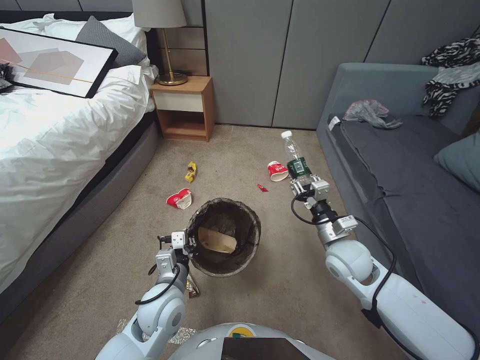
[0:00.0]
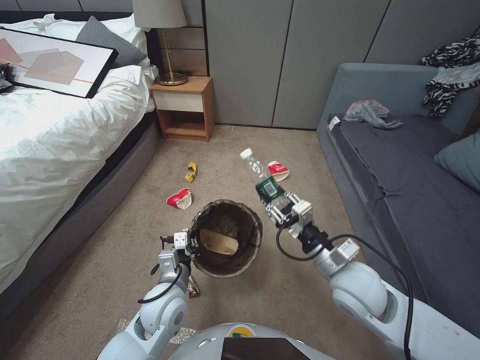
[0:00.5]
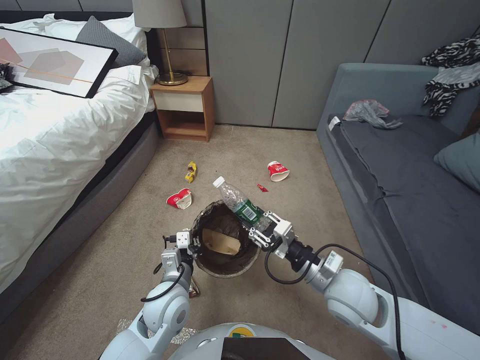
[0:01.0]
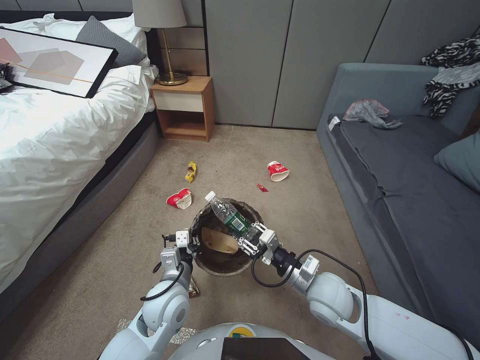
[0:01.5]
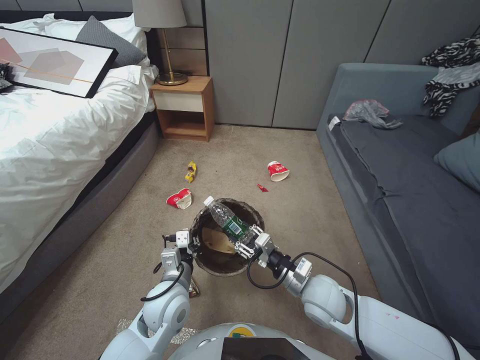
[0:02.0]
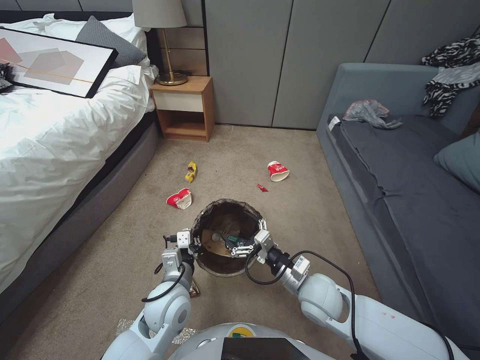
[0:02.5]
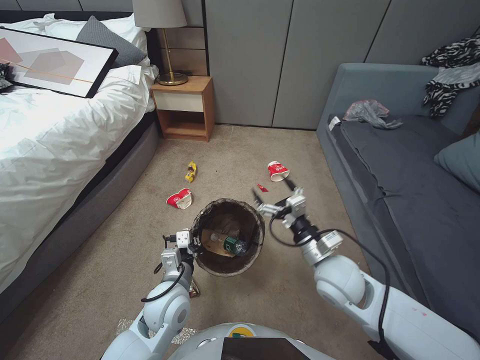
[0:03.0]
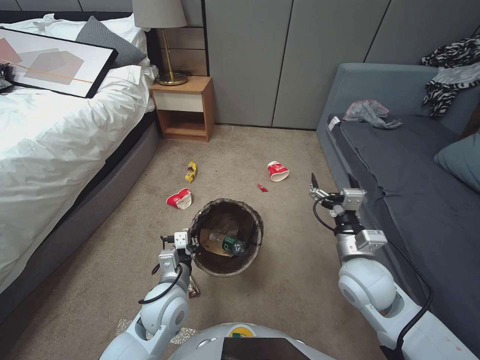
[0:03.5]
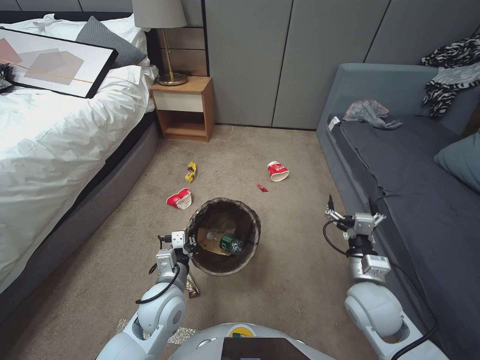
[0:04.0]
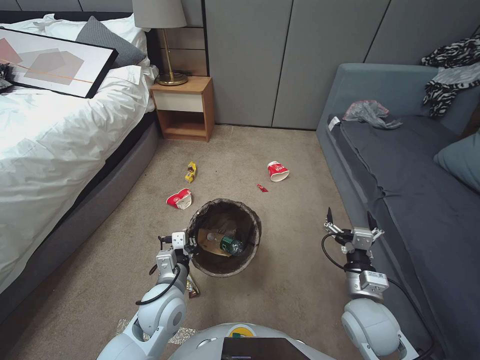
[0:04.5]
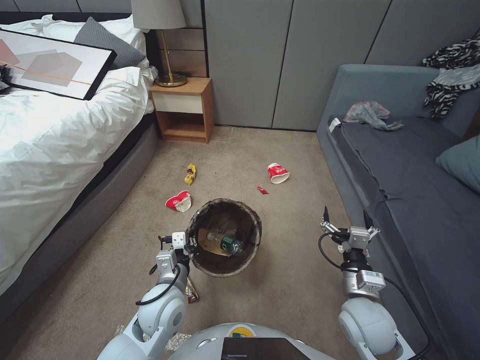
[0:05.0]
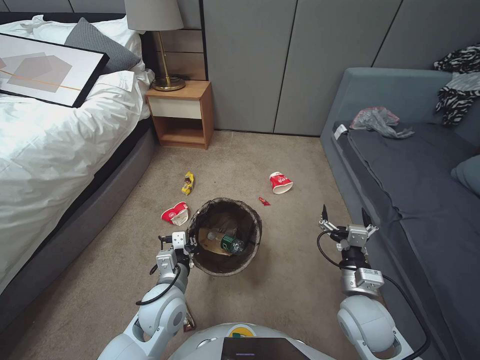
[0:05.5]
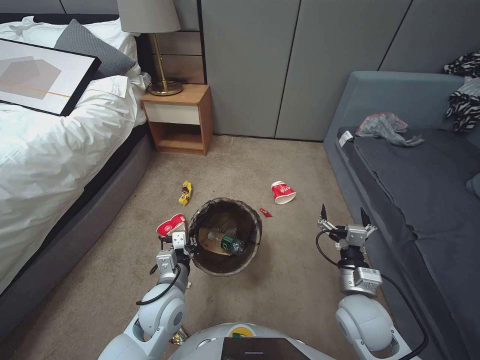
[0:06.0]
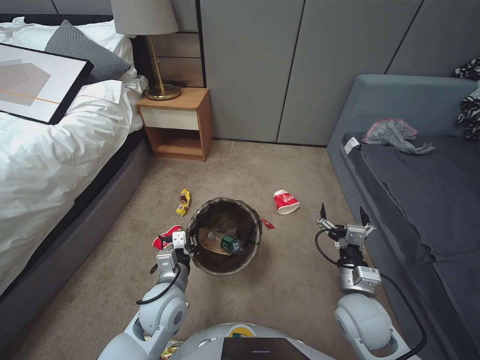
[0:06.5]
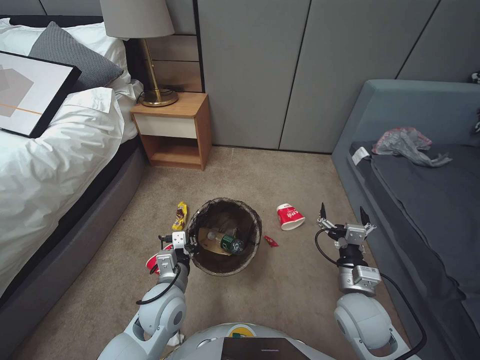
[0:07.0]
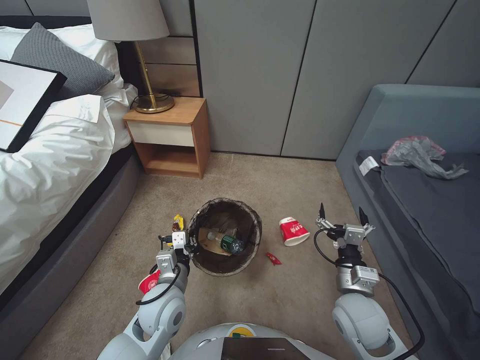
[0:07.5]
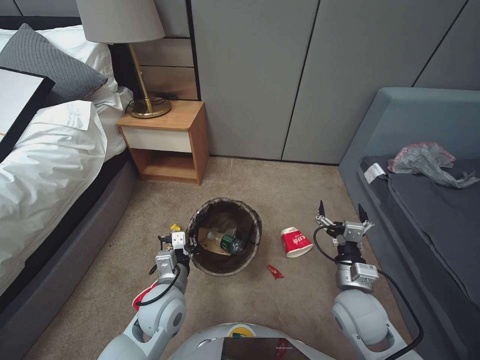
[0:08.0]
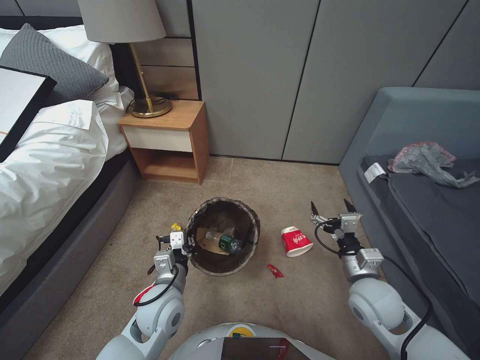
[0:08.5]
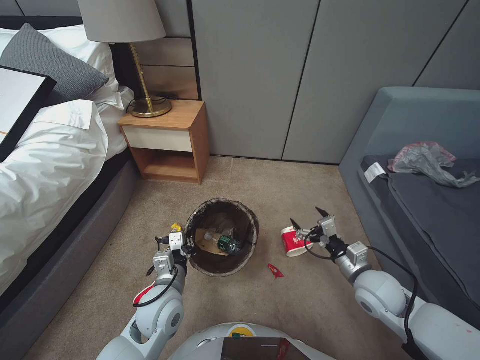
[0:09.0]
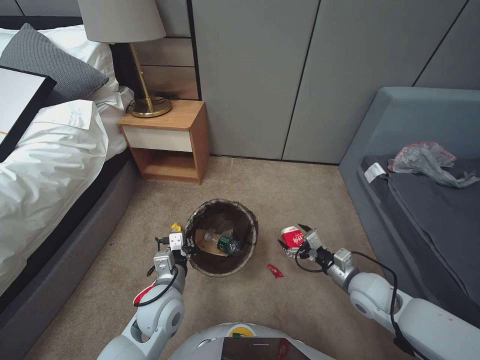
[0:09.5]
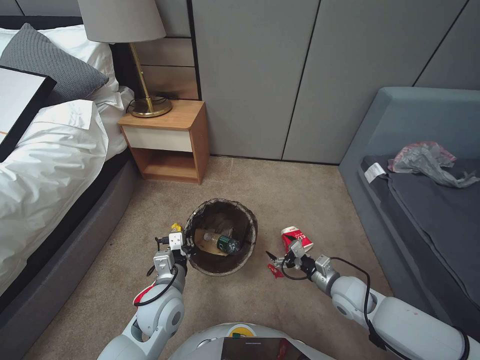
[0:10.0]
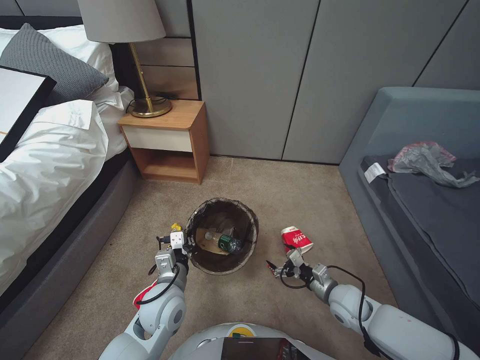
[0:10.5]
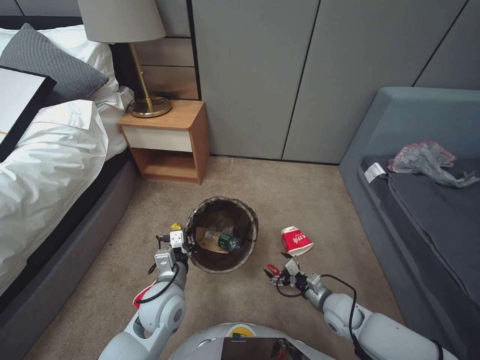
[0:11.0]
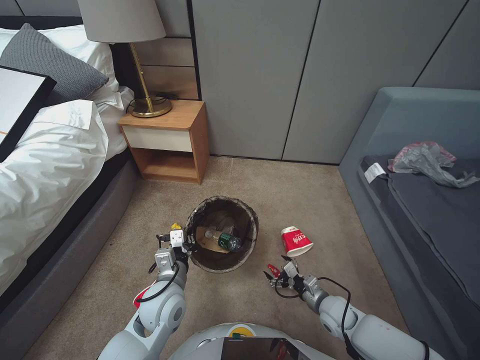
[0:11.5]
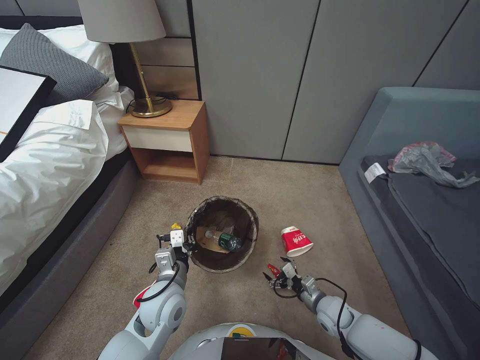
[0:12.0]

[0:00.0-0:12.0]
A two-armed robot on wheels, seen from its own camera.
Task of the whole recording: Pick up the trash bin, then pick up the garbage from the floor and place it into the trash bin.
0:00.0 to 0:02.0: The right gripper travels backward and to the left by some 10 cm.
0:02.0 to 0:04.0: The right gripper moves to the right and upward, approximately 10 cm, and opens up.
0:04.0 to 0:06.0: The right gripper changes place by about 5 cm.
0:08.0 to 0:10.0: The right gripper moves downward, forward and to the right, roughly 10 cm.
0:10.0 to 0:12.0: The right gripper moves downward, about 10 cm.

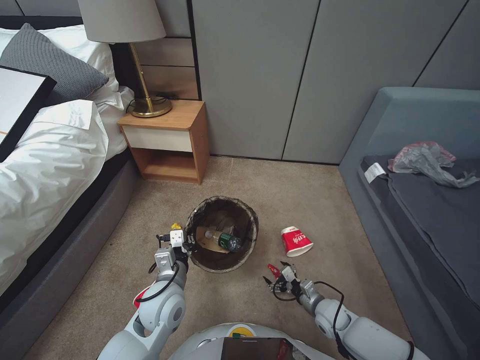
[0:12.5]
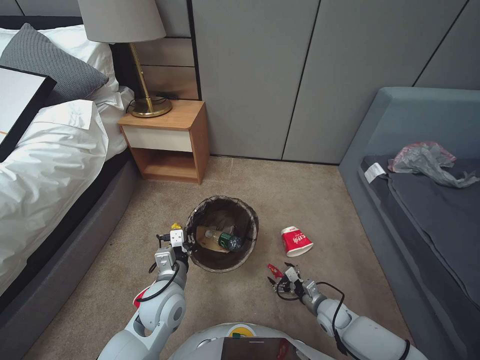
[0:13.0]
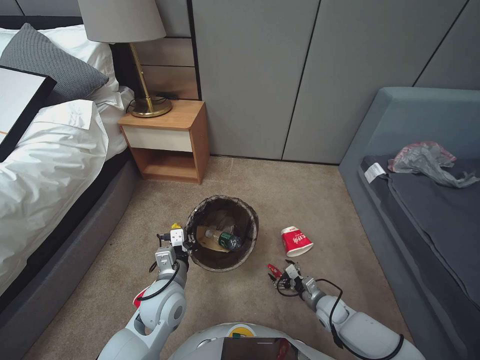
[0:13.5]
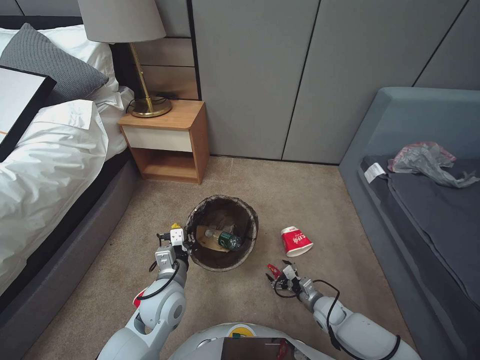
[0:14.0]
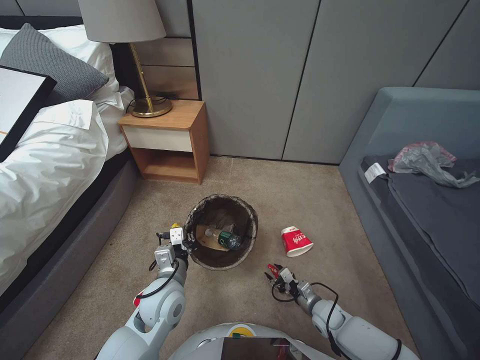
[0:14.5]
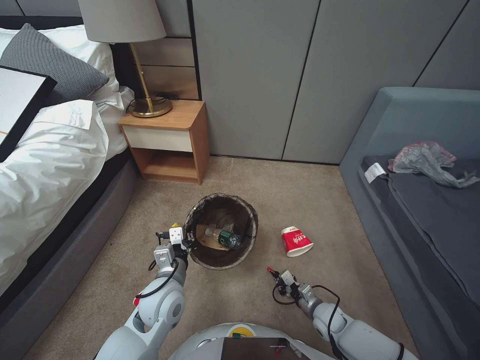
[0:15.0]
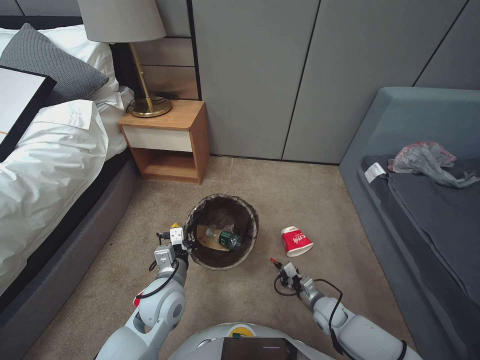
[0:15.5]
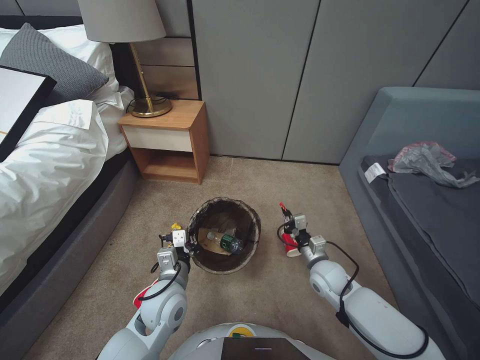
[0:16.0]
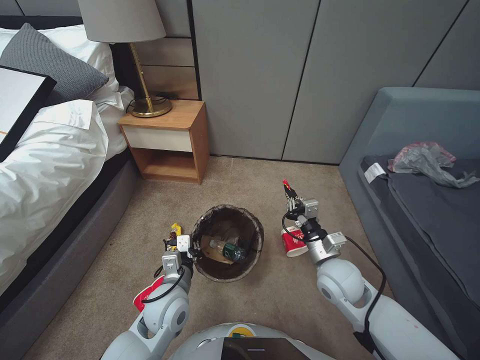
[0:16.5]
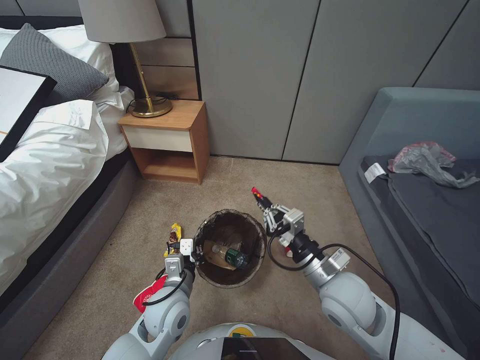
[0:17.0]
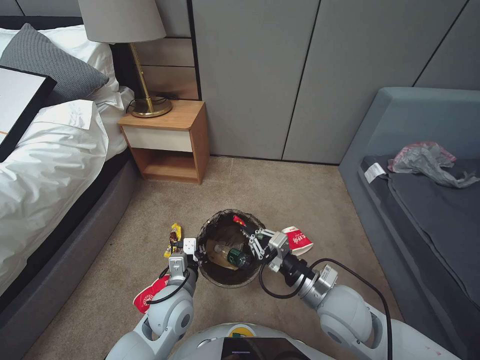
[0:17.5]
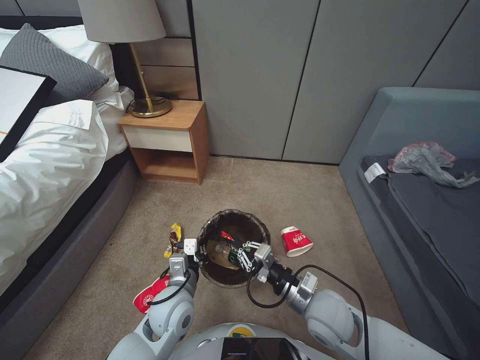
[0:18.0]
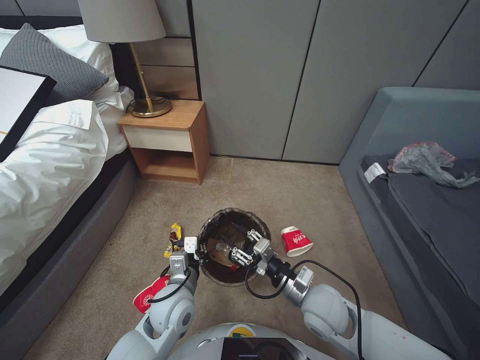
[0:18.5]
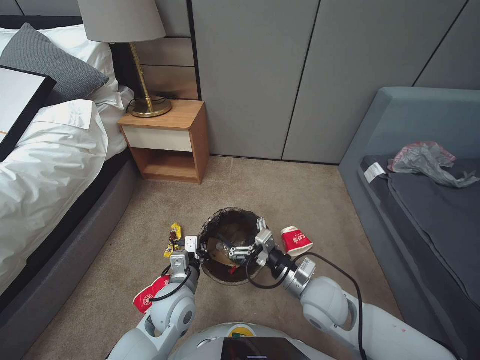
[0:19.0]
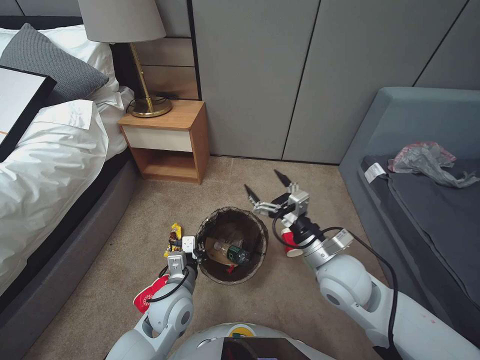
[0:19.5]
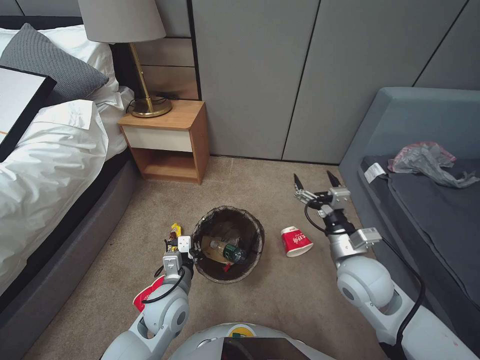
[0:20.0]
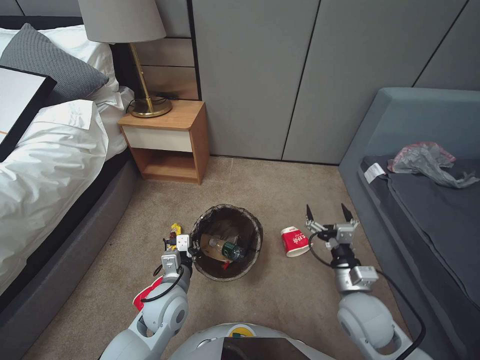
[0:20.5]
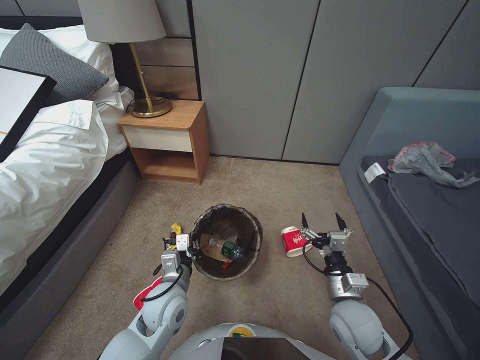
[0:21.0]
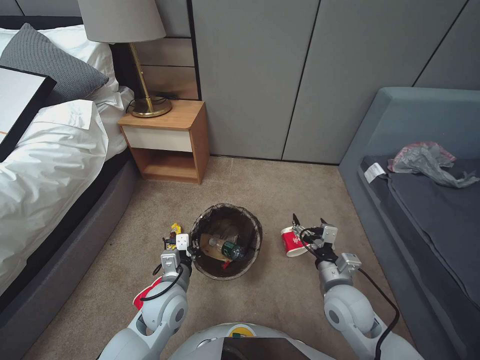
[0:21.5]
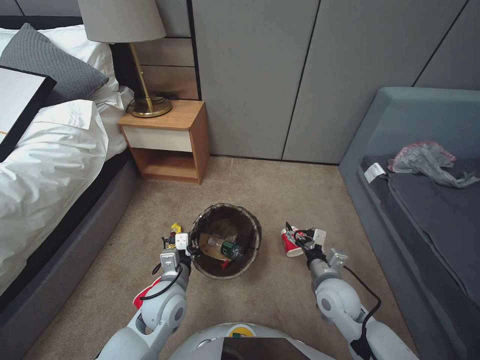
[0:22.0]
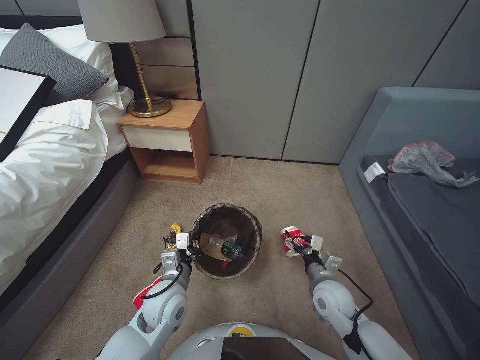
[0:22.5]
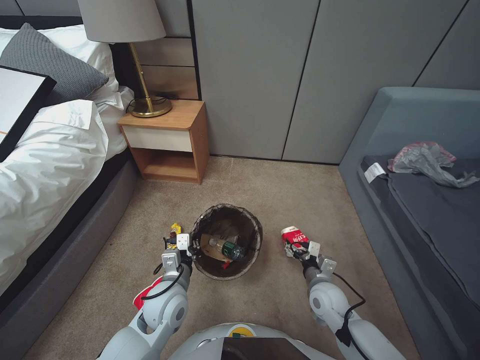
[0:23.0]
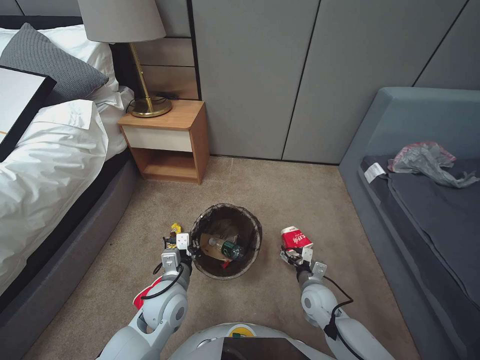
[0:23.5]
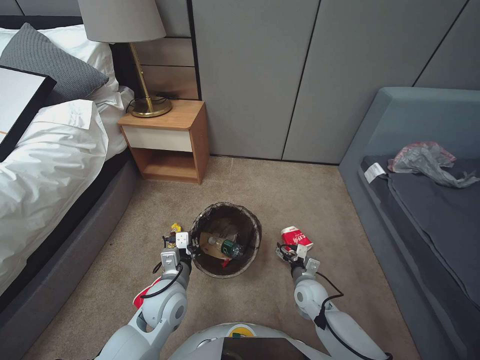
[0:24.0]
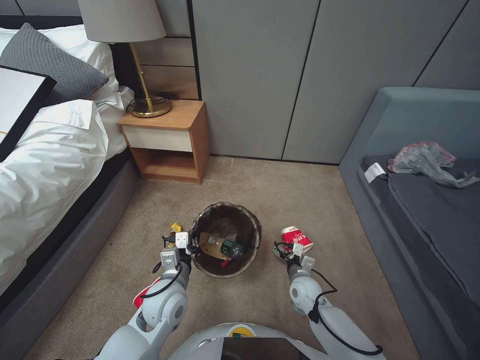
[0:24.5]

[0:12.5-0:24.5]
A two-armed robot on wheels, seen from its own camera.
Task of the whole recording: Pick up the trash bin, then pick up the garbage from the floor and place it into the trash bin.
0:12.5 to 0:14.5: The right gripper closes its fingers.
0:14.5 to 0:16.5: The right gripper travels upward by some 25 cm, and closes its fingers.
0:16.5 to 0:18.5: The right gripper heads backward and to the left, covering about 10 cm.
0:18.5 to 0:20.5: The right gripper heads to the right, covering approximately 10 cm, and opens its fingers.
0:20.5 to 0:22.5: The right gripper shifts approximately 10 cm downward.
0:22.5 to 0:24.5: The right gripper heads downward, covering some 10 cm.

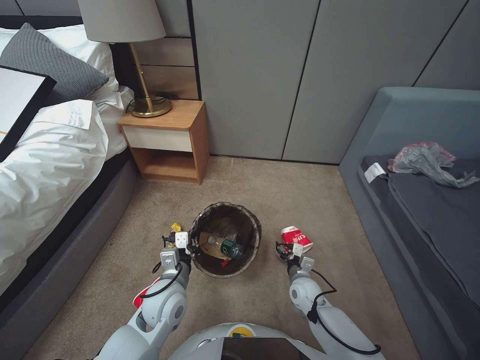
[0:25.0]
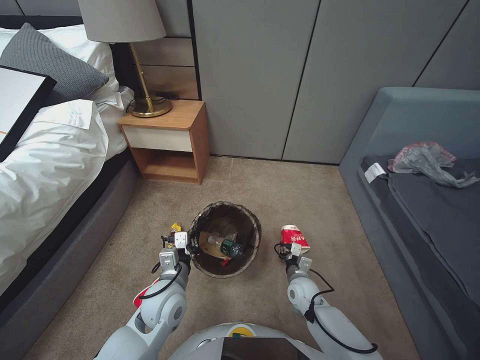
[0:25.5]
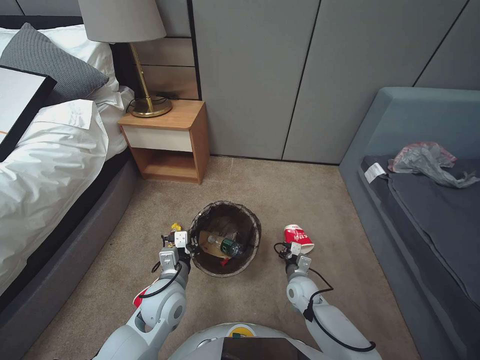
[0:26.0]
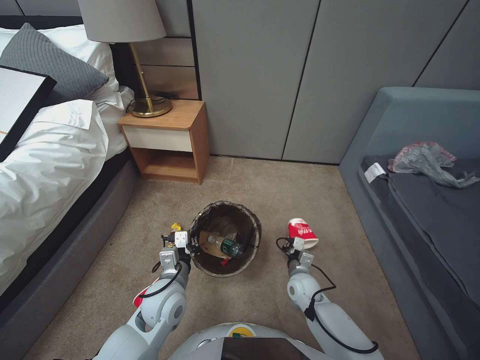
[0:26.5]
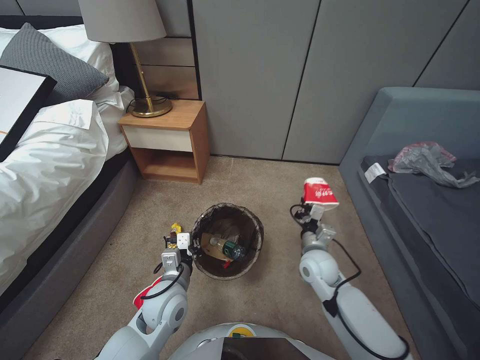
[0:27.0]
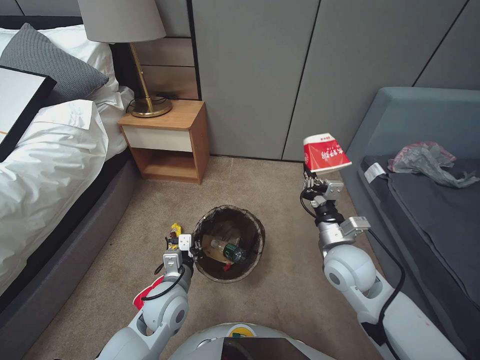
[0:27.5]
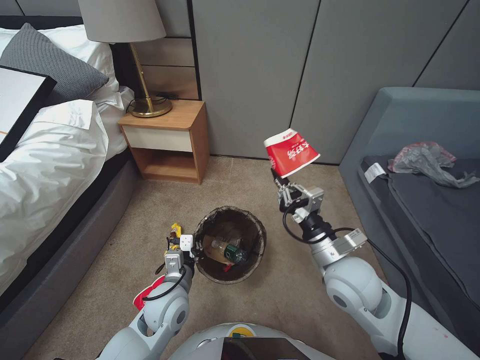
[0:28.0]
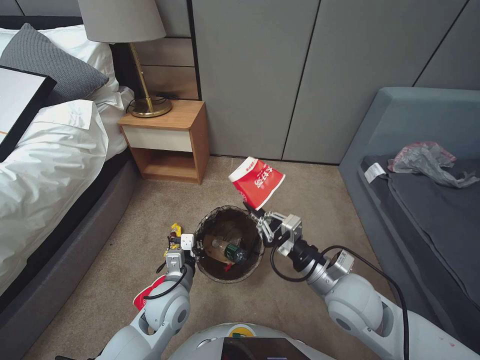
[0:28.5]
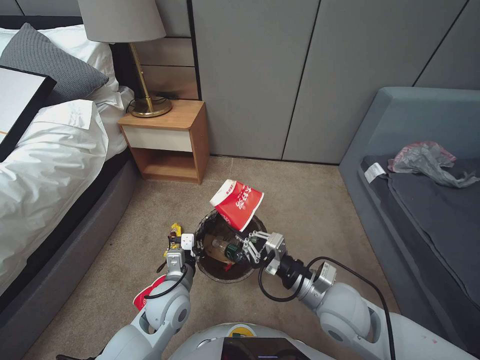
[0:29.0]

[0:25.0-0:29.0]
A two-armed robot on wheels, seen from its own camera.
Task of the whole recording: Pick up the trash bin, then pick up the garbage from the floor and place it into the trash bin.
0:25.0 to 0:27.0: The right gripper heads upward, covering approximately 10 cm, and closes up.
0:27.0 to 0:29.0: The right gripper moves upward and backward, approximately 15 cm.
